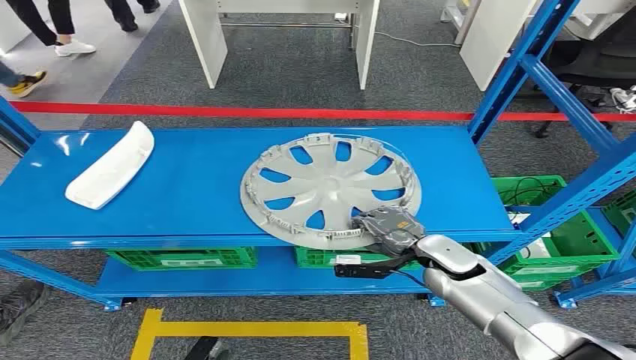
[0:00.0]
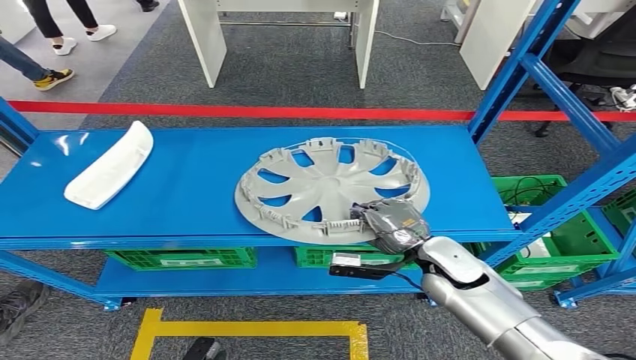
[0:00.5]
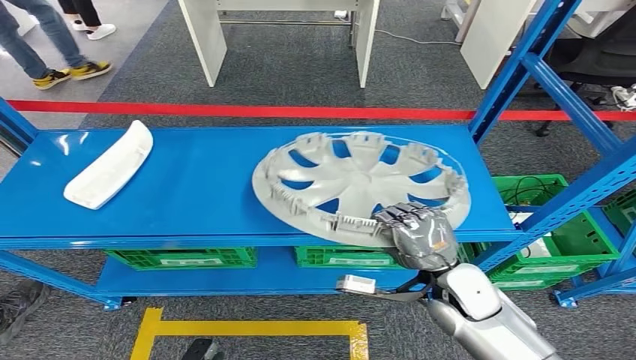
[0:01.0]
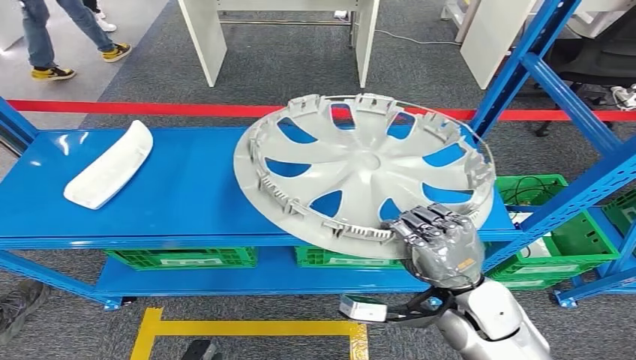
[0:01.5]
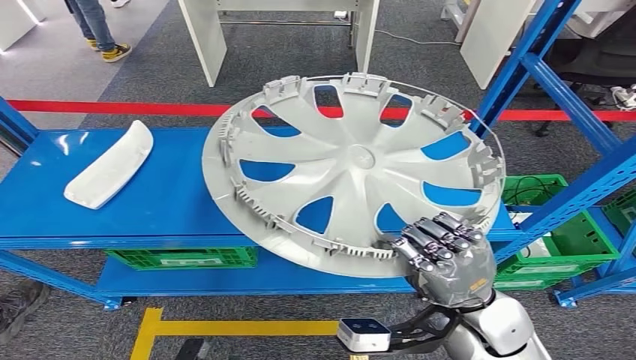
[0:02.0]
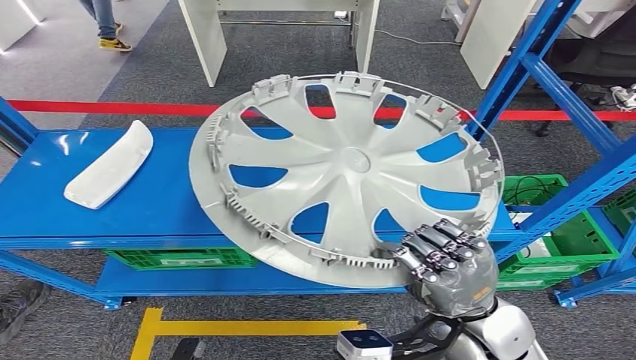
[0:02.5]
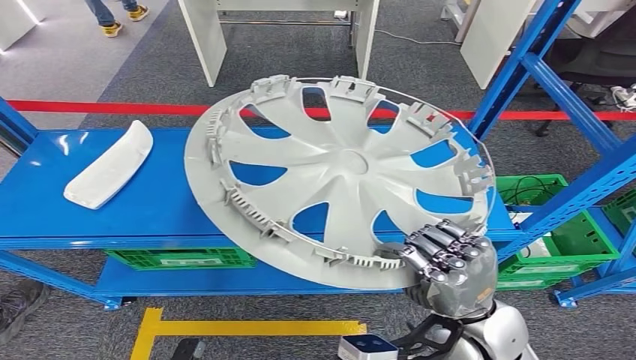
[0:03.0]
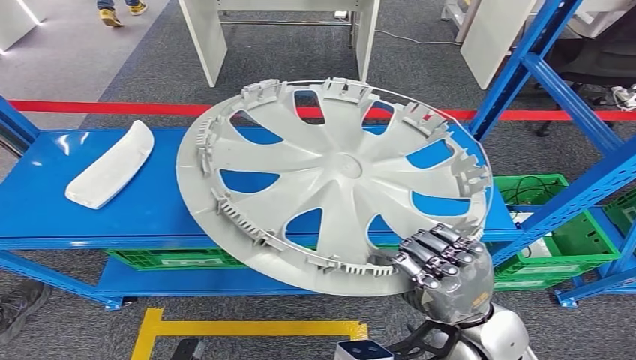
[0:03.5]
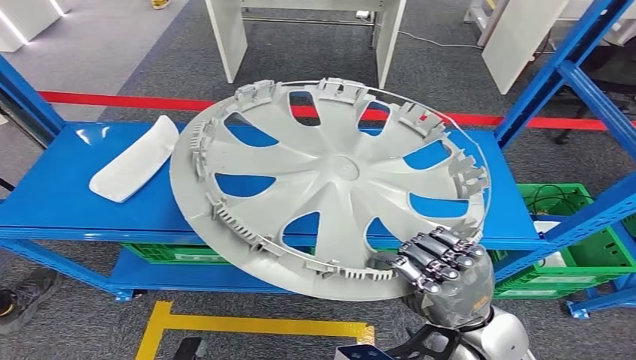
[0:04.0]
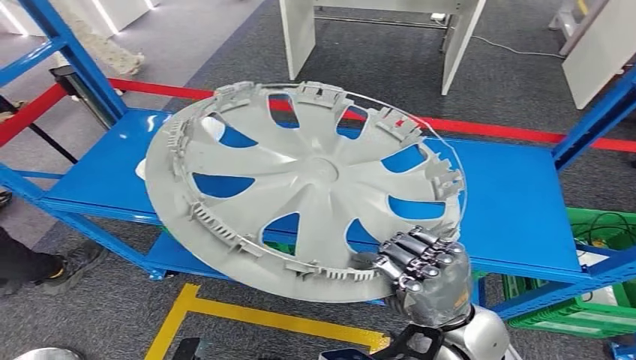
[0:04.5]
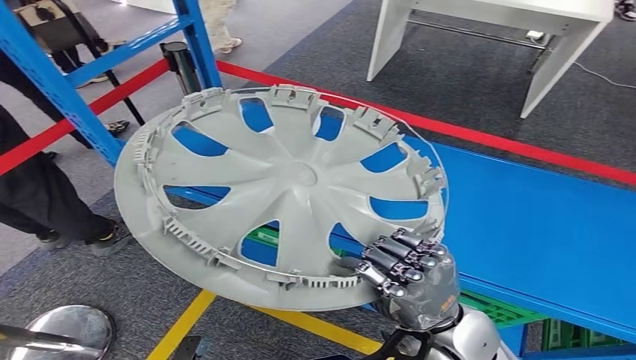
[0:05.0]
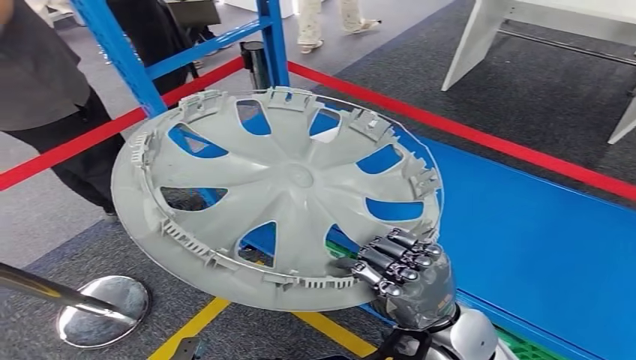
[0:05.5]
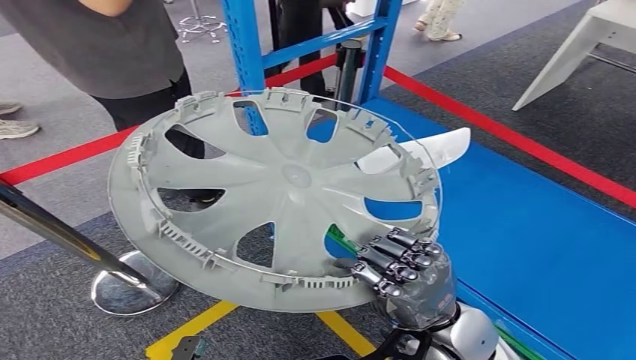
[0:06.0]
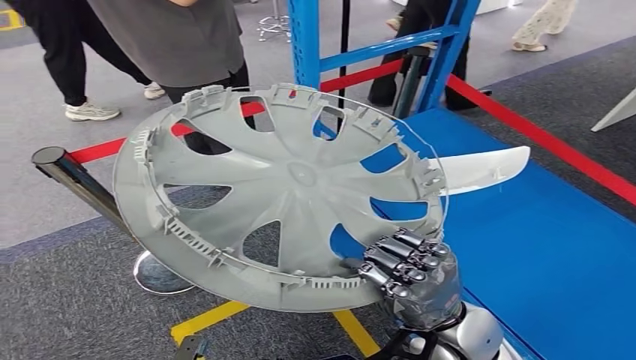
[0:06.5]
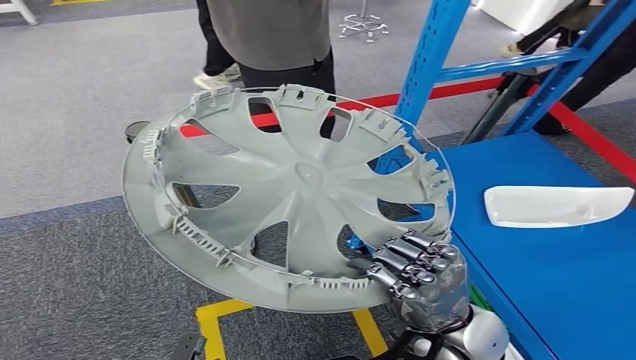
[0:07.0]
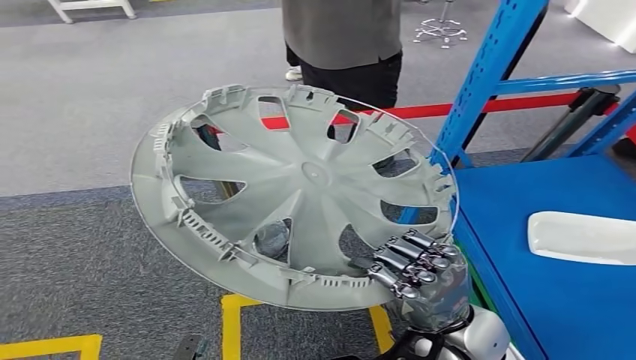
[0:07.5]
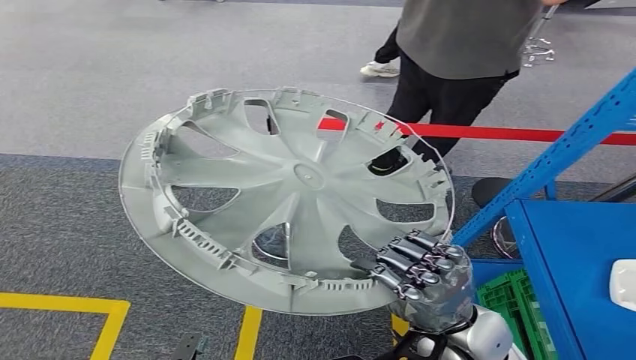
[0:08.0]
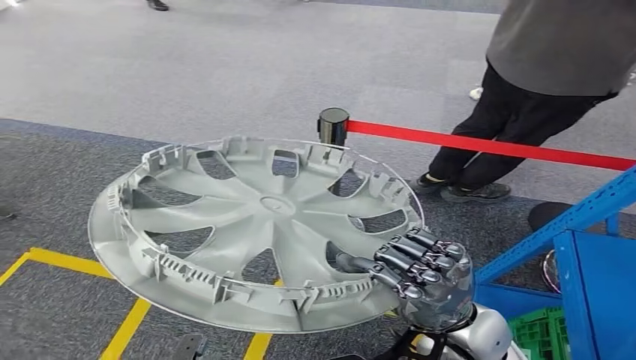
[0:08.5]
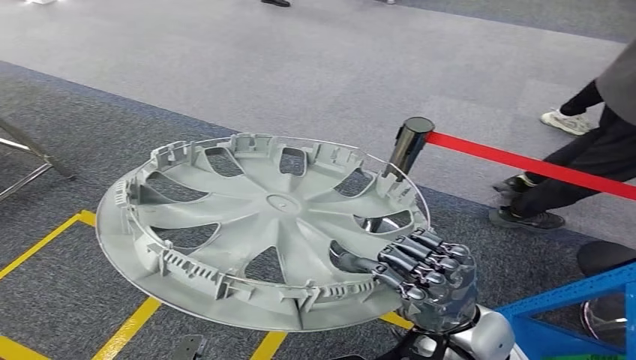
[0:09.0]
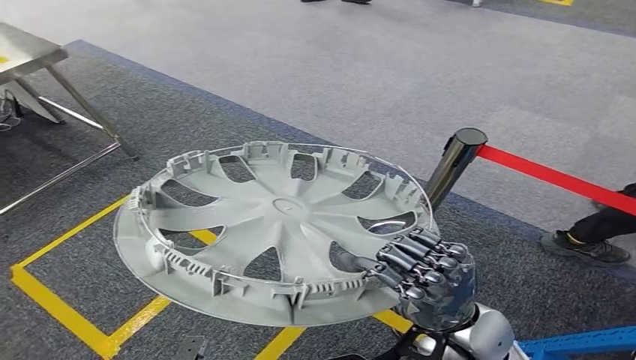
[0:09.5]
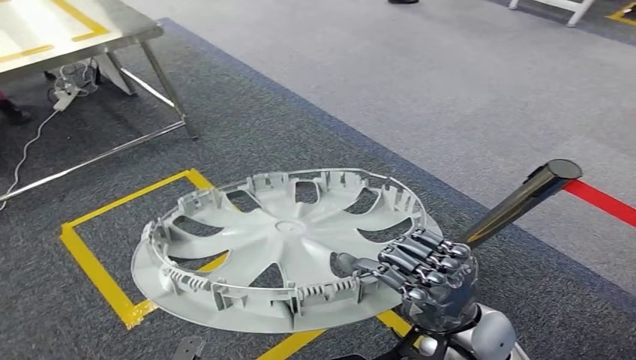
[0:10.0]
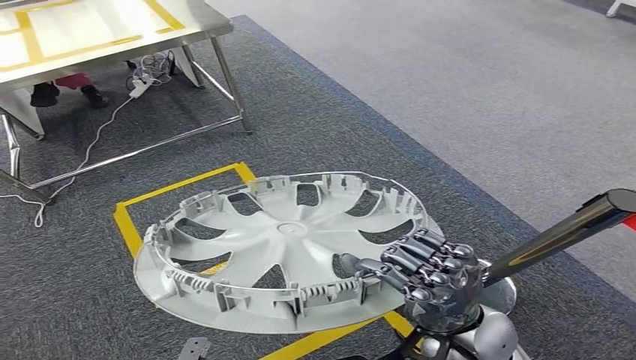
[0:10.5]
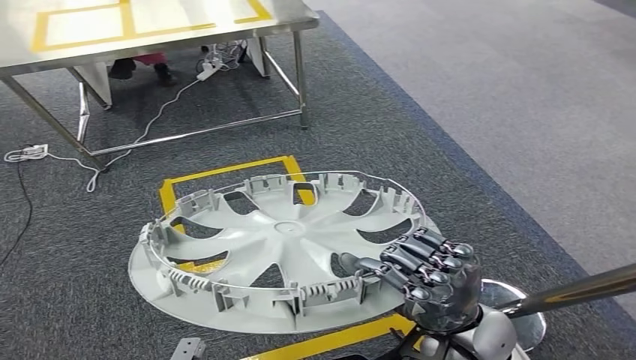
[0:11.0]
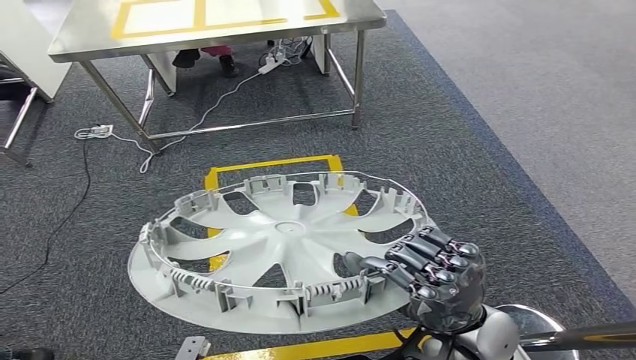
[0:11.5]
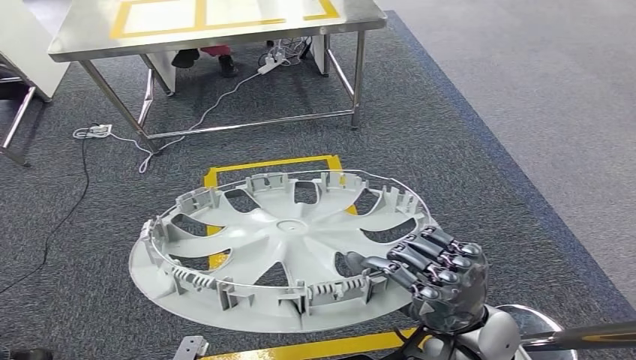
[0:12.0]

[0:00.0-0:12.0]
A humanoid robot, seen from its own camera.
Step, 0:00.0 to 0:02.0: Pick up the small component from the shelf.

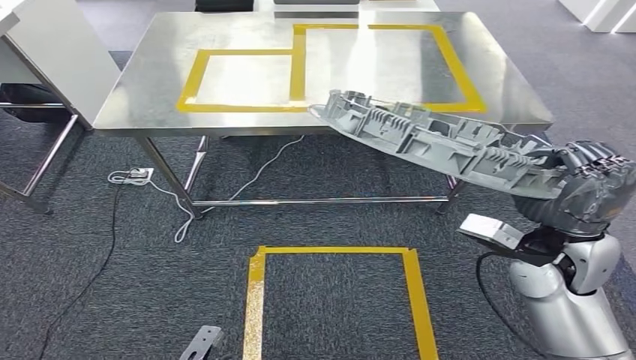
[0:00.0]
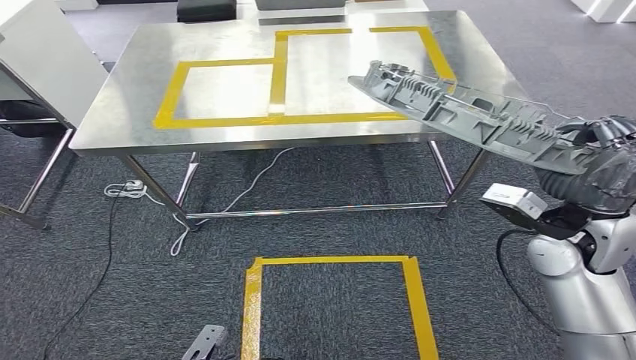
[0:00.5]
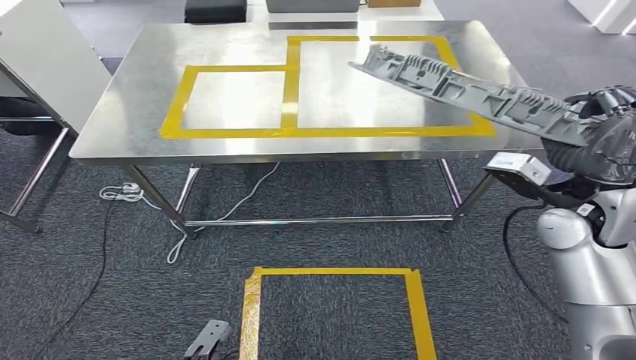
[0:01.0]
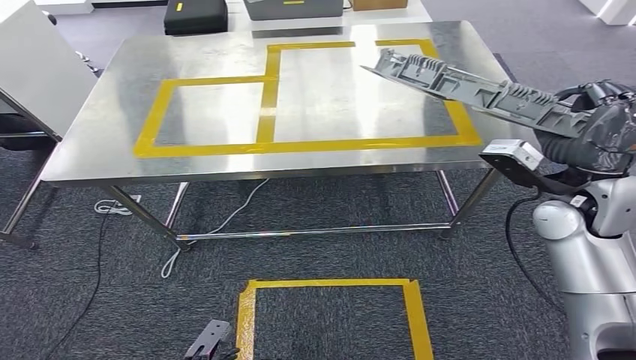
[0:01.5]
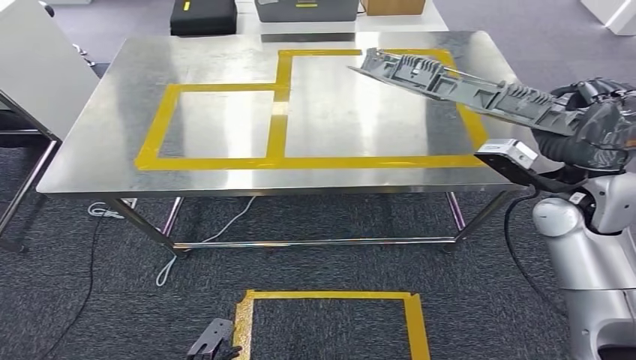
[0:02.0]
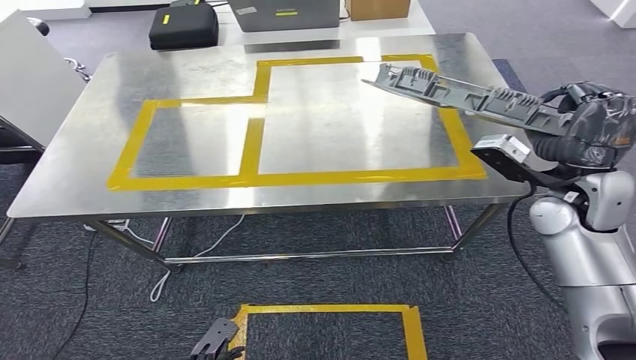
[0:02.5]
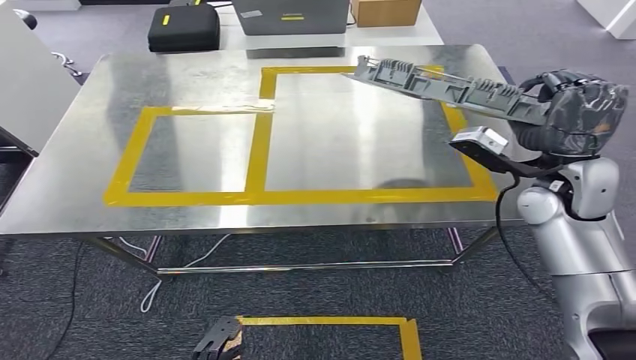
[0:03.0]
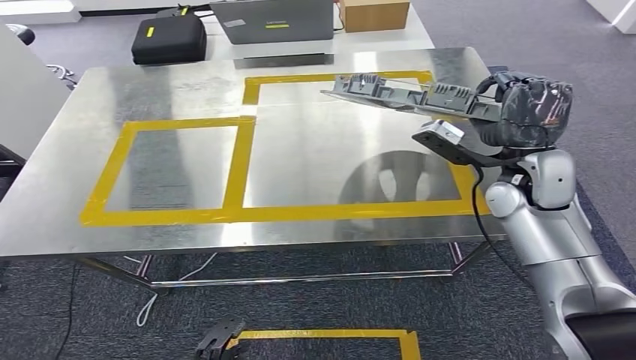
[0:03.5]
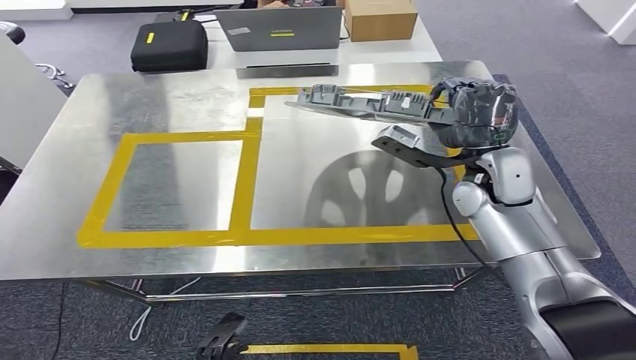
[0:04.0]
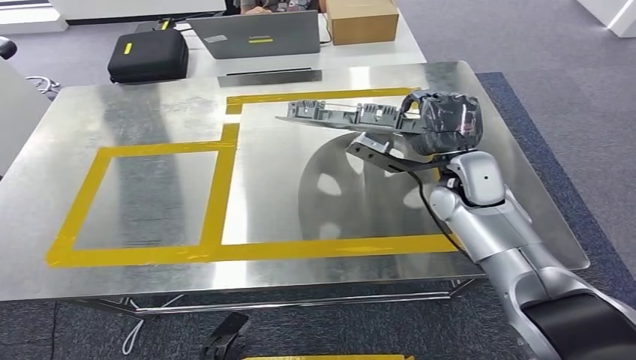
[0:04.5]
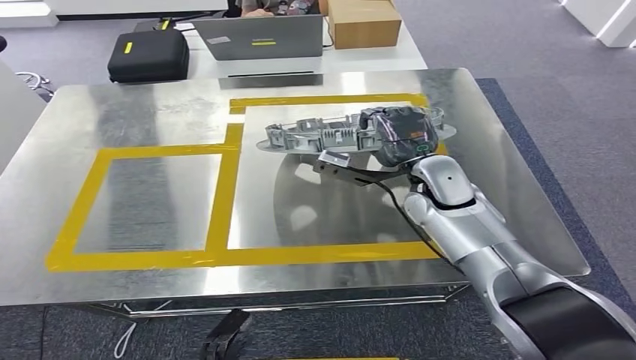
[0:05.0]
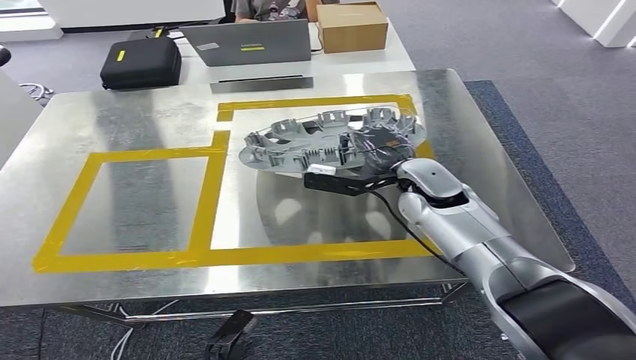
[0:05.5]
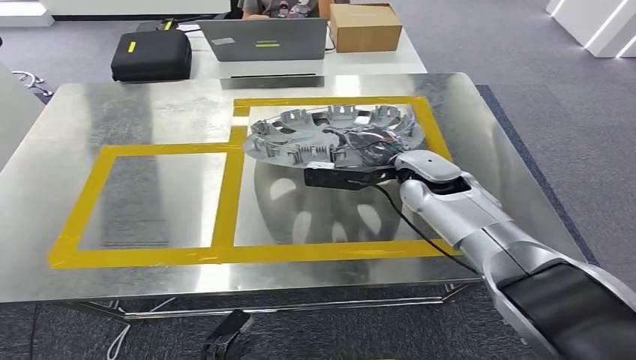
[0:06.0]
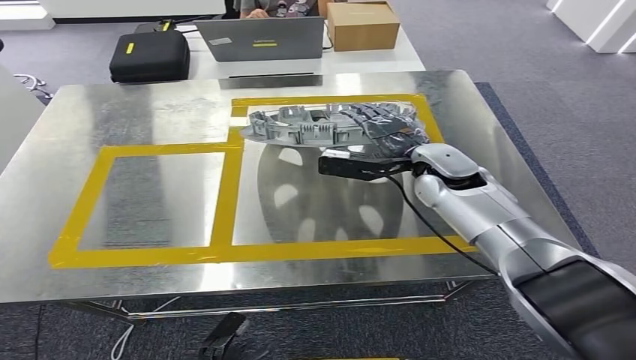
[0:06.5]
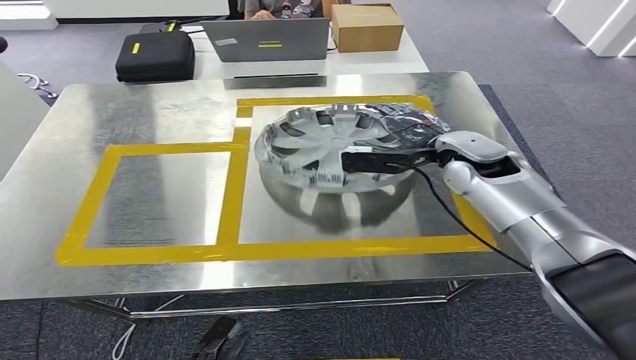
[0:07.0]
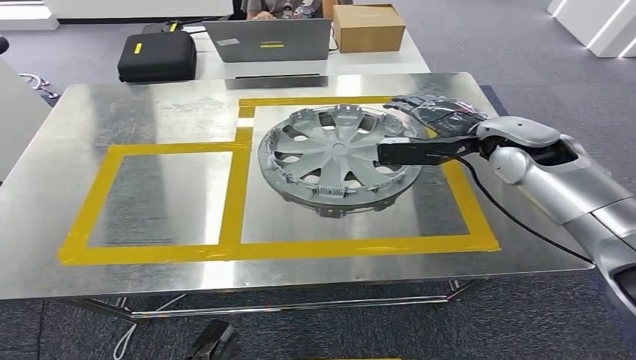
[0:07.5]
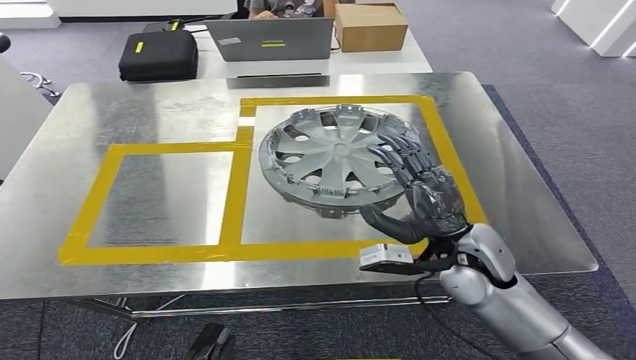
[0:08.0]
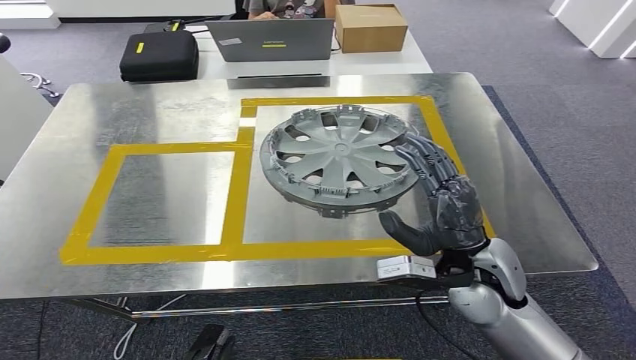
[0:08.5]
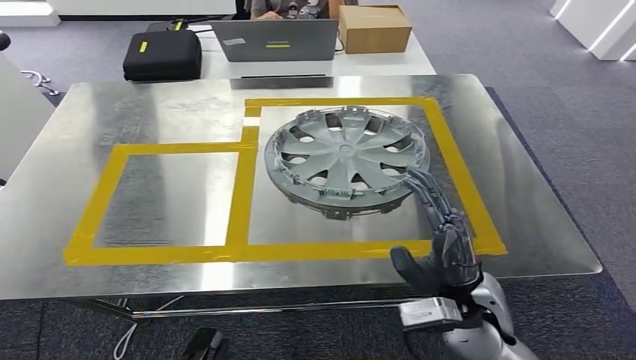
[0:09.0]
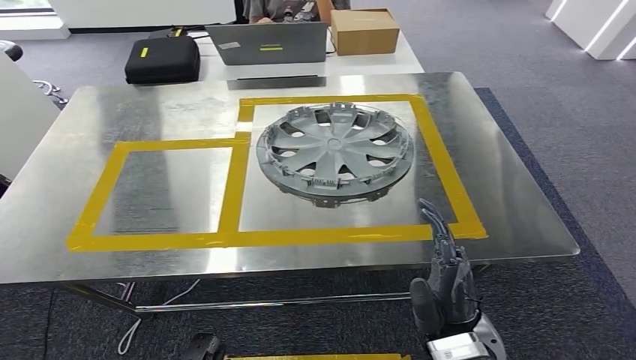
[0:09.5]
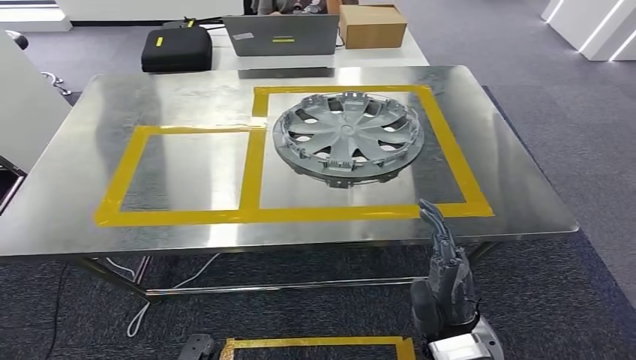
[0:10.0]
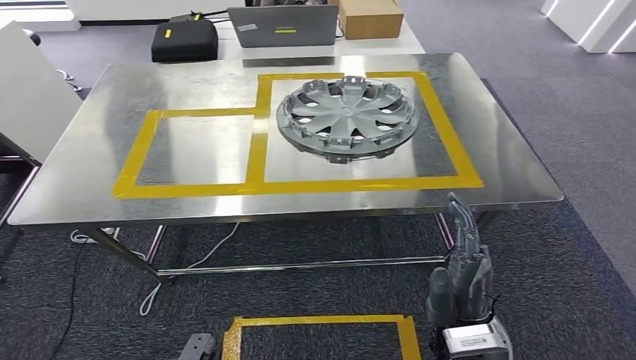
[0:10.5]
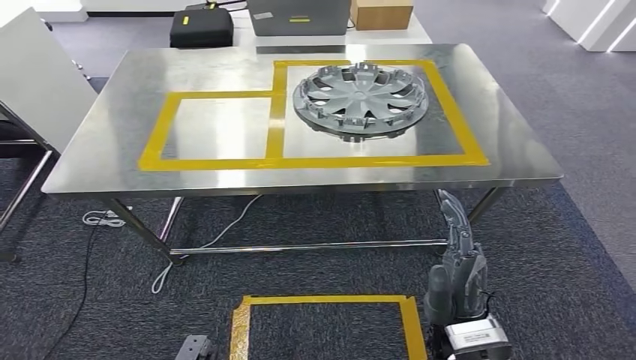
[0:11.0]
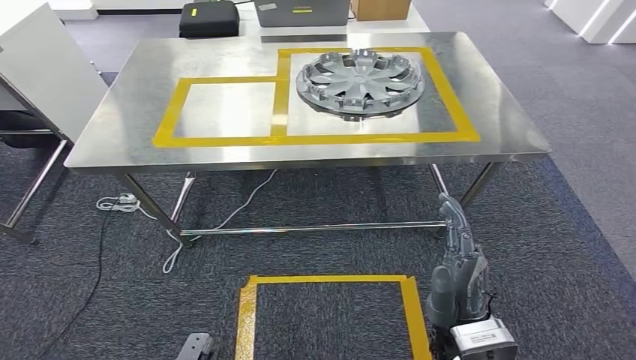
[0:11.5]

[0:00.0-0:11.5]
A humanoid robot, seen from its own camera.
Step, 0:00.0 to 0:02.5: Bring the small component to the front of the workbench.
Step, 0:03.0 to 0:08.0: Insert the small component into the corresponding slot on the workbench.
